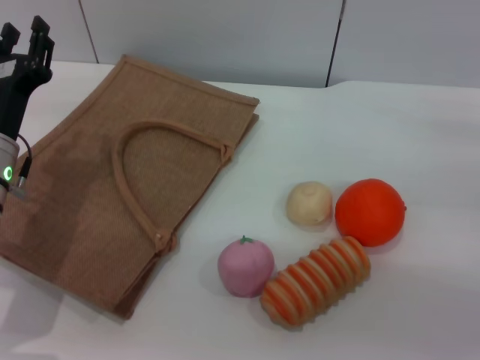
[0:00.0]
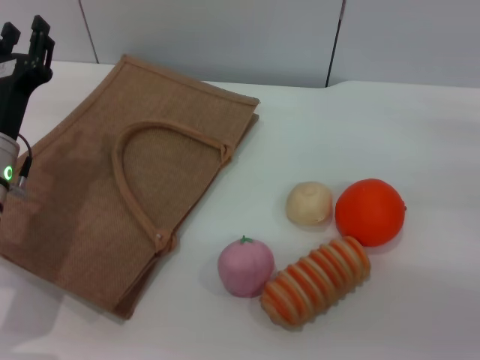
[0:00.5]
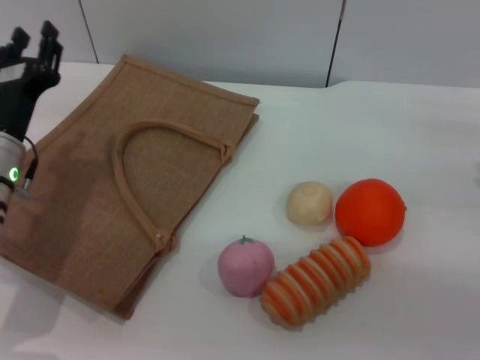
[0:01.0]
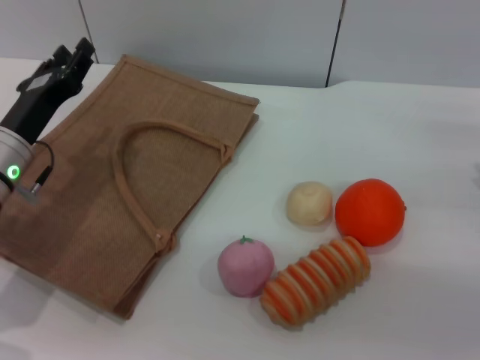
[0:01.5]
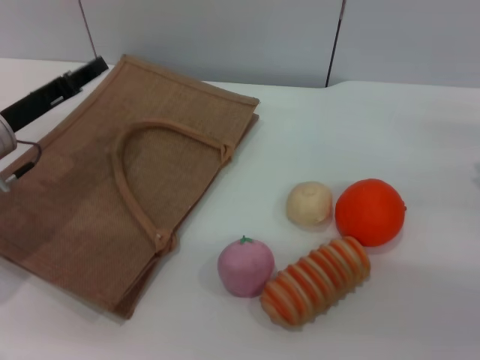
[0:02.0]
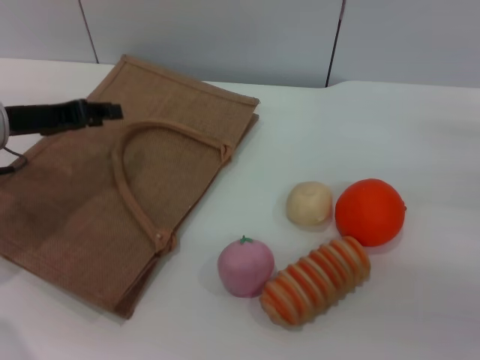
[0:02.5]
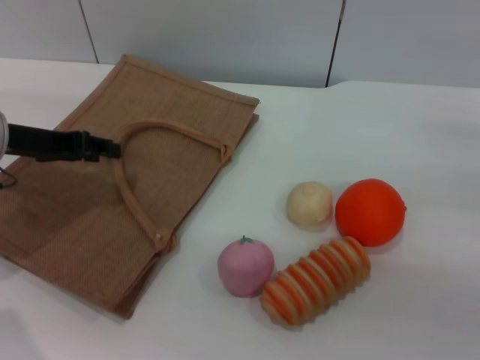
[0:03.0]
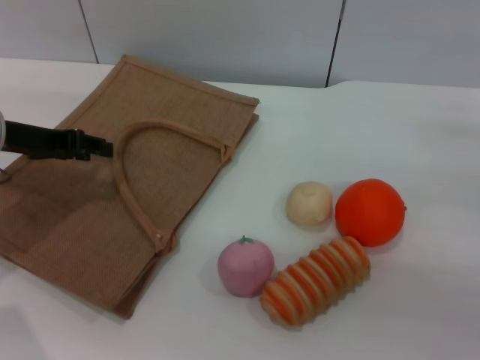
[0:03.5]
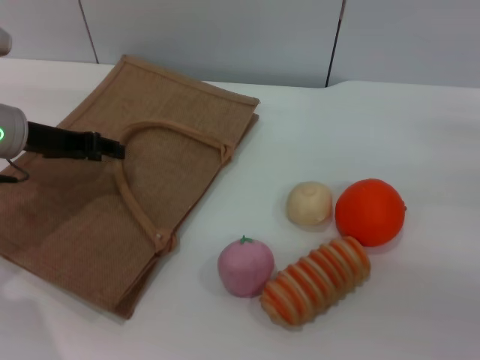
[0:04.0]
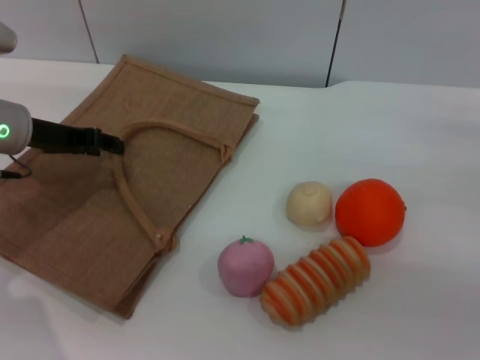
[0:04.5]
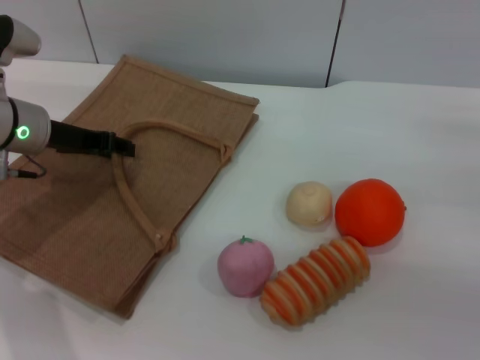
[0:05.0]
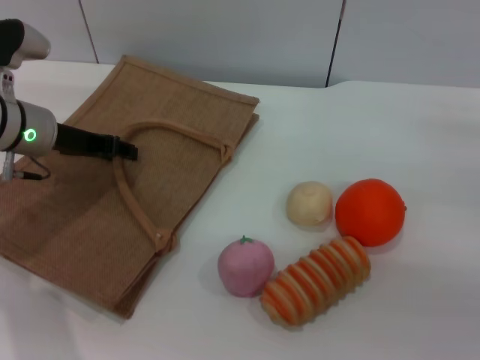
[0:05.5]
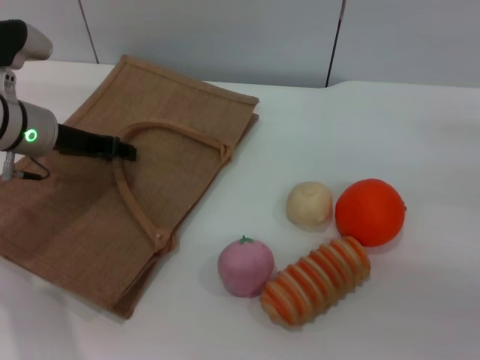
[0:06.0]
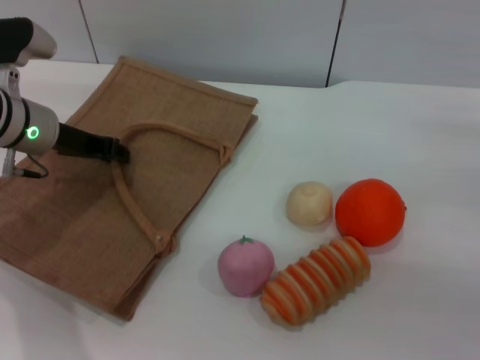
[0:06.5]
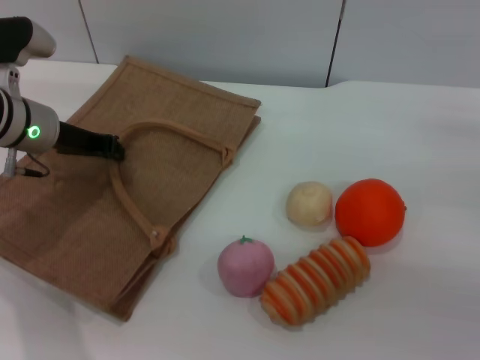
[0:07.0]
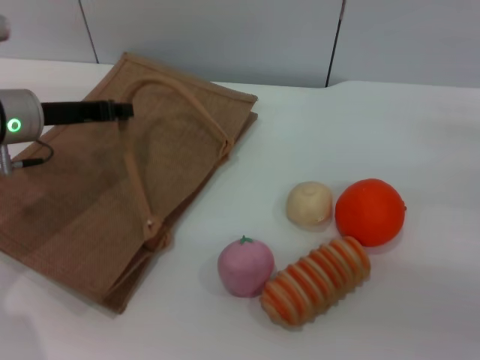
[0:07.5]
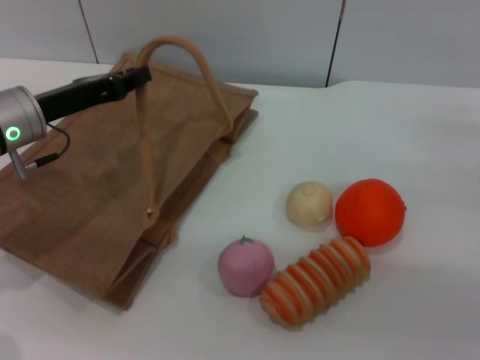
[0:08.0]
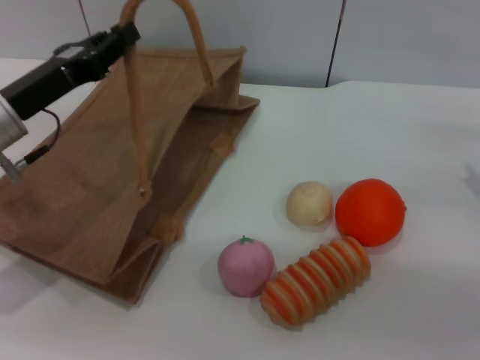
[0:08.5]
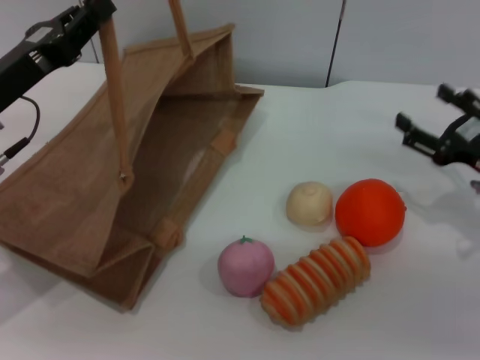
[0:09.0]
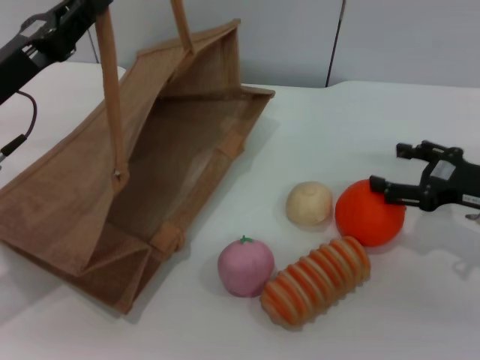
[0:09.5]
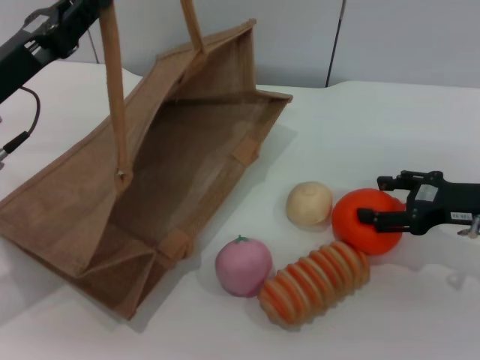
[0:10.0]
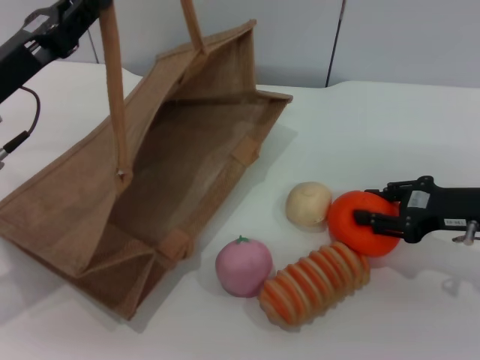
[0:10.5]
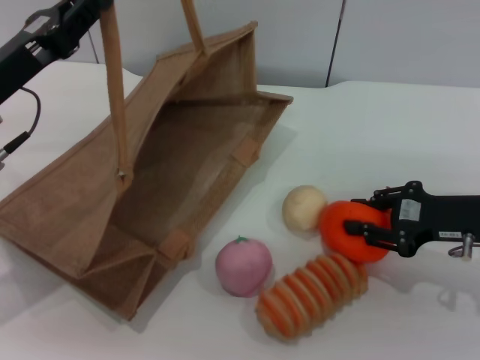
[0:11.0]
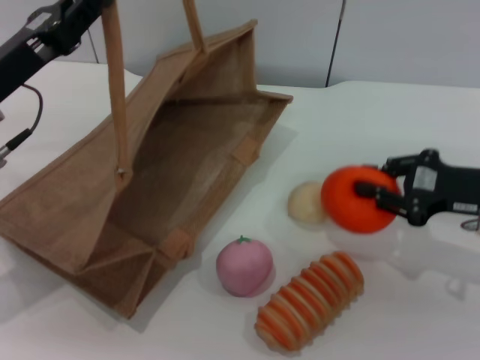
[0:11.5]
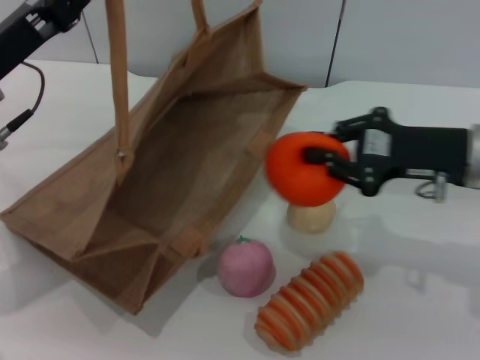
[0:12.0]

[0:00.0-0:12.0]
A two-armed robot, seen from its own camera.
Task of the whole recording: pick up the orange and peach from the table and place it in the brown handbag.
Step, 0:00.0 to 0:08.5: Lift the woven bag with the left gripper to open it.
Step, 0:09.0 to 0:11.5: Pick up the orange with the right gripper.
0:00.0 to 0:02.0: The left gripper changes place by some 5 cm.
0:04.0 to 0:06.0: The grippers make only small movements.
0:06.0 to 0:08.0: The left gripper closes.
0:08.0 to 0:10.0: The right gripper goes some 5 cm to the left. Meanwhile the left gripper changes place by about 5 cm.
0:10.0 to 0:12.0: The right gripper goes about 10 cm to the left and upward, and closes up.

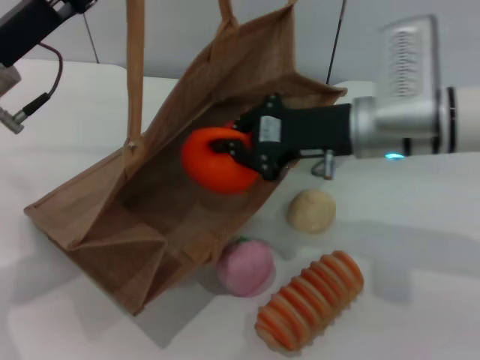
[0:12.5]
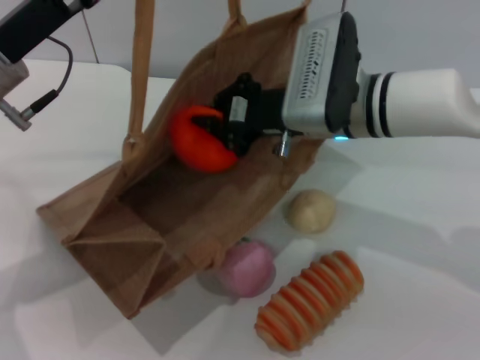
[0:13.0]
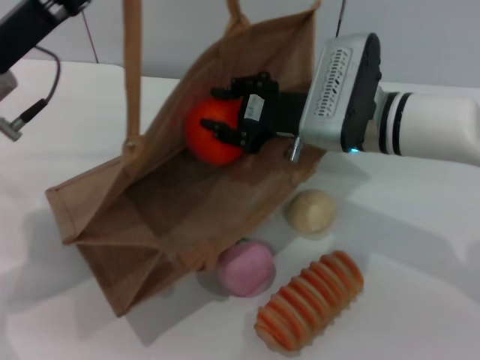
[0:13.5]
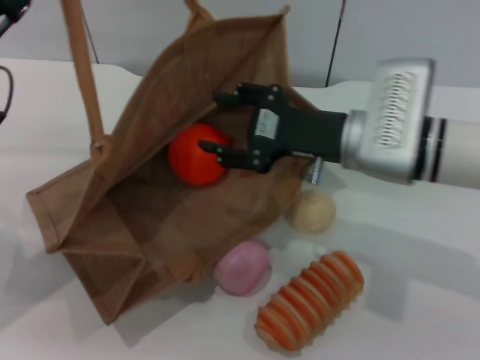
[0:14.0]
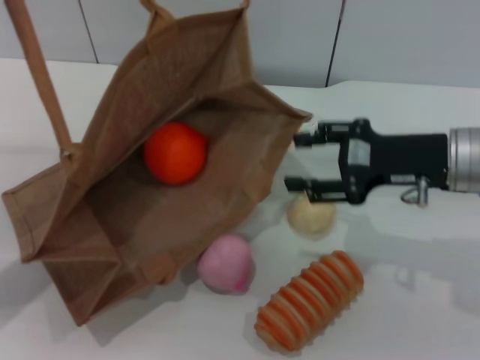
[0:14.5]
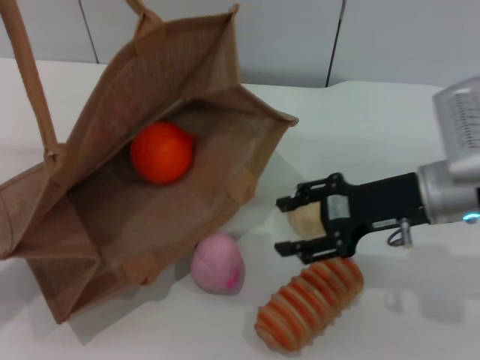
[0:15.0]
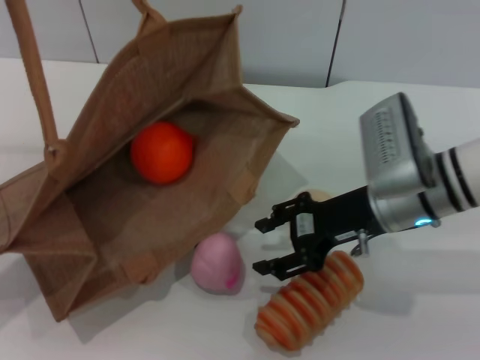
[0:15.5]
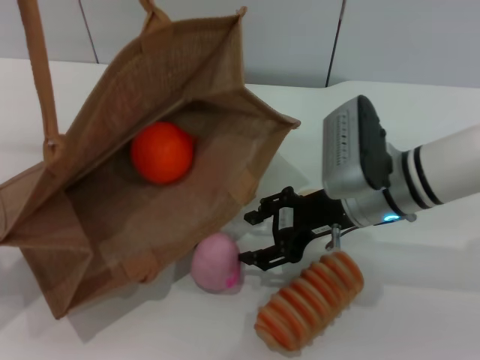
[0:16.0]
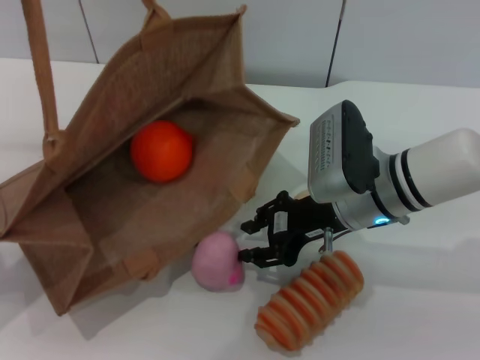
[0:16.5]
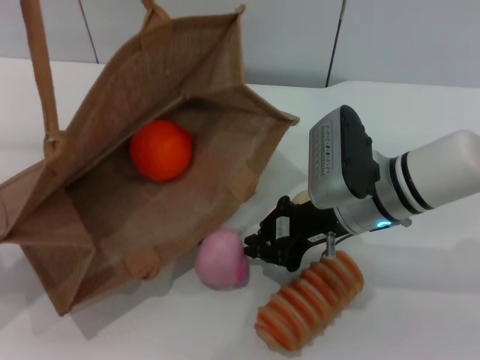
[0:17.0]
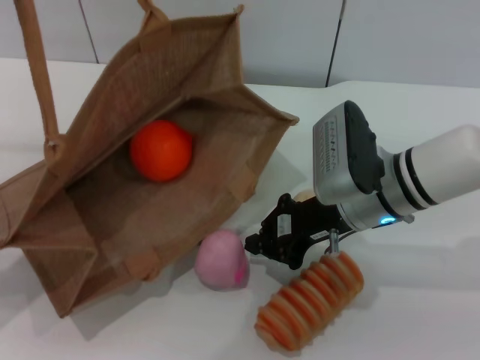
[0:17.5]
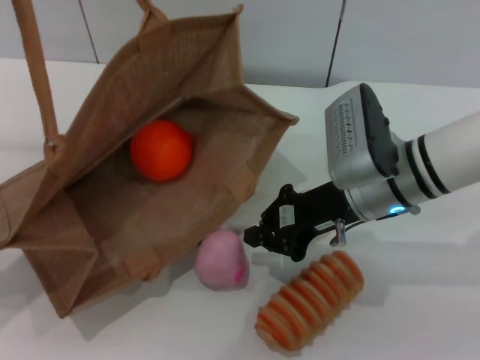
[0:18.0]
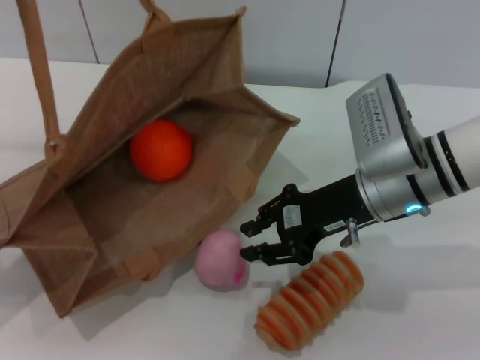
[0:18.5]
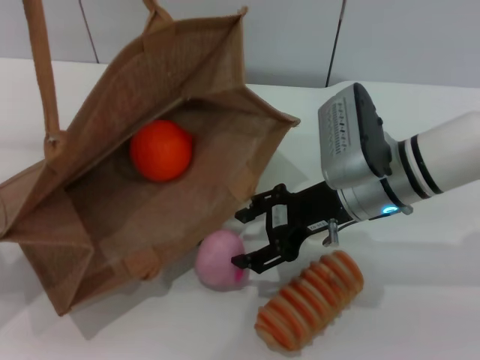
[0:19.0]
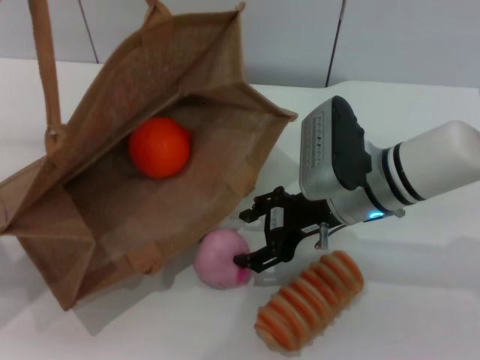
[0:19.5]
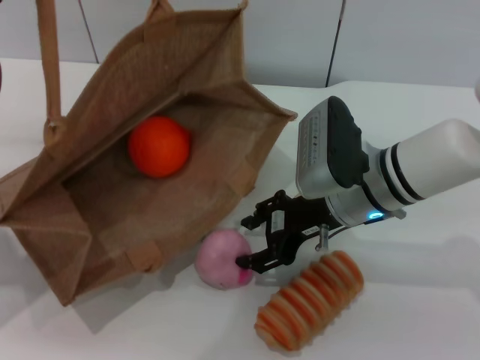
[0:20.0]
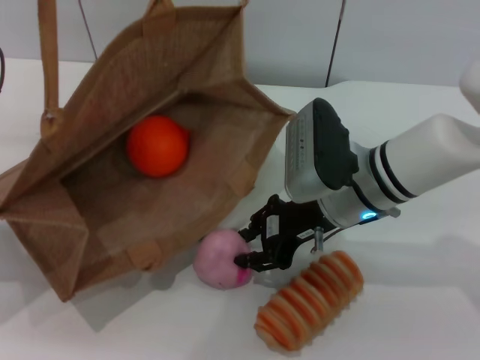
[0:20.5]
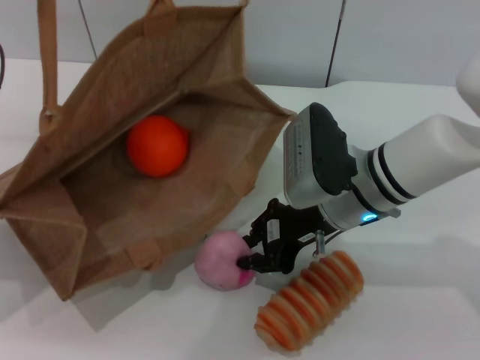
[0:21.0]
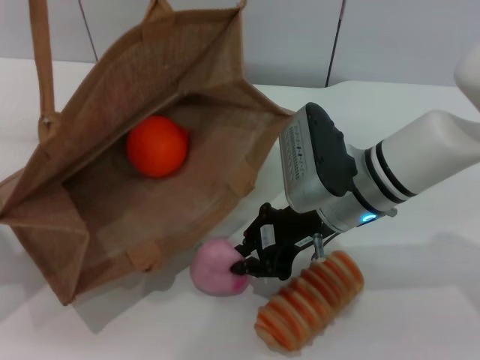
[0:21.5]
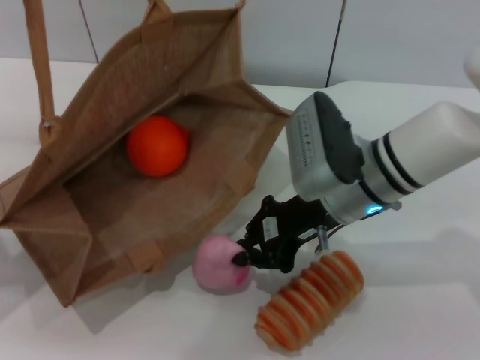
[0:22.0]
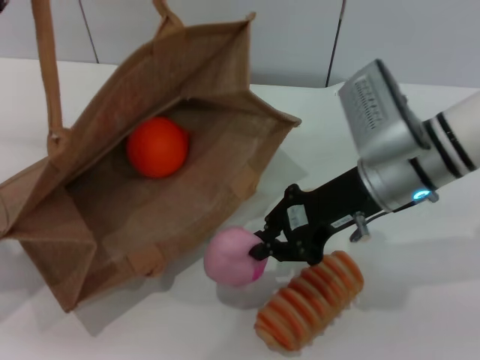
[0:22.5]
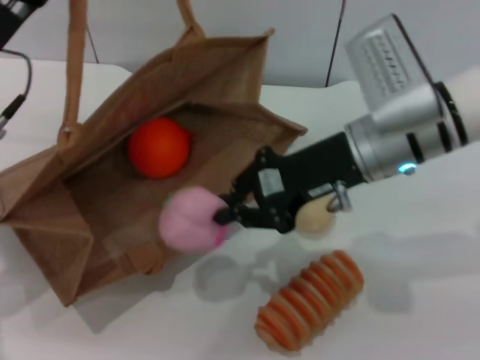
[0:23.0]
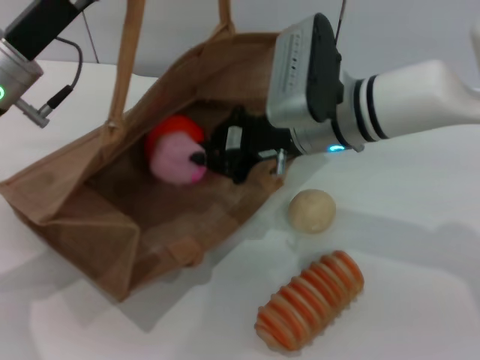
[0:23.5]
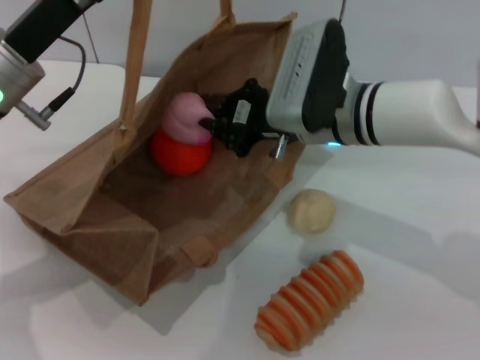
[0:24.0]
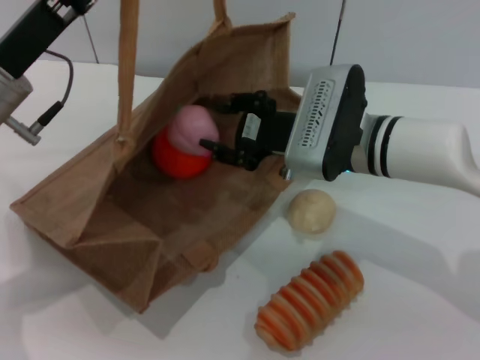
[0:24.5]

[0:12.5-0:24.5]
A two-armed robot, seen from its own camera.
Task of the whole recording: pick up the orange and peach from the table and place it in the brown handbag.
Step, 0:12.5 to 0:14.0: Place the orange into the woven bag with the right gripper.
Step, 0:14.5 to 0:22.5: Pick up the peach with the right gripper.
0:12.5 to 0:14.5: The left gripper moves to the left and backward, some 5 cm, while the right gripper travels to the right by approximately 10 cm, and opens up.
0:14.5 to 0:16.5: The right gripper is displaced to the left by roughly 10 cm.
0:16.5 to 0:18.5: The right gripper closes.
0:18.5 to 0:20.5: The right gripper opens.
0:20.5 to 0:22.5: The right gripper moves approximately 5 cm, and closes up.
0:22.5 to 0:24.5: The left gripper shifts roughly 5 cm to the right, while the right gripper changes place by about 5 cm.

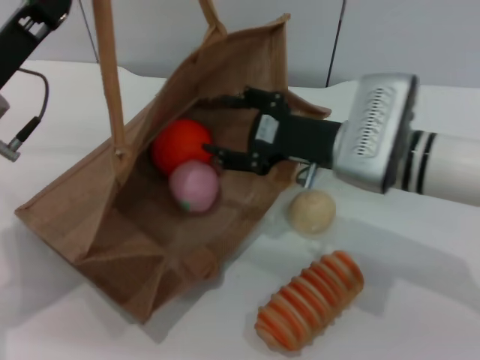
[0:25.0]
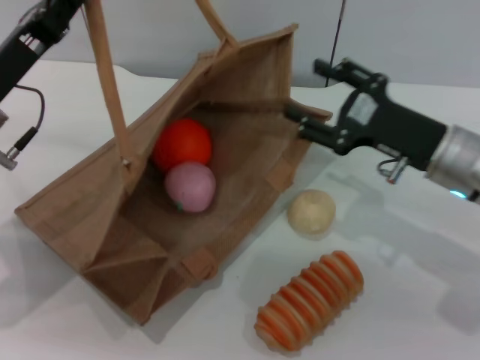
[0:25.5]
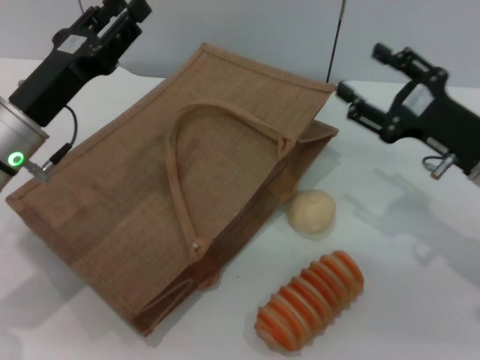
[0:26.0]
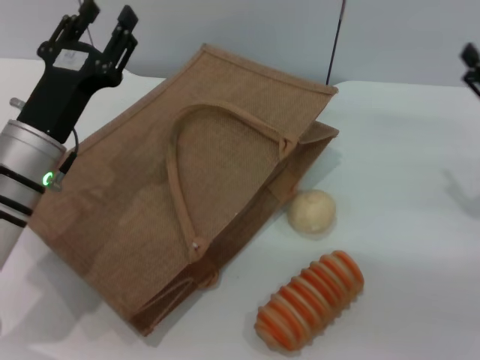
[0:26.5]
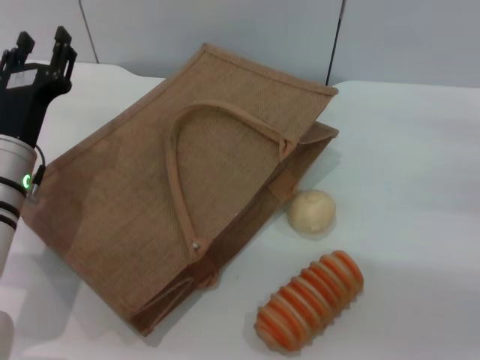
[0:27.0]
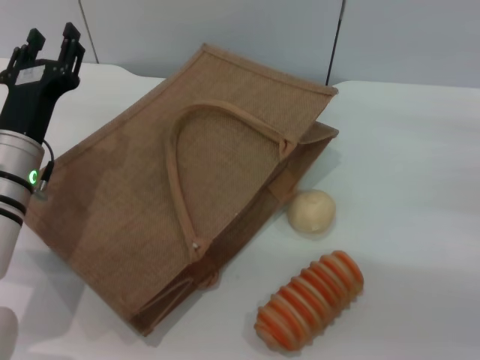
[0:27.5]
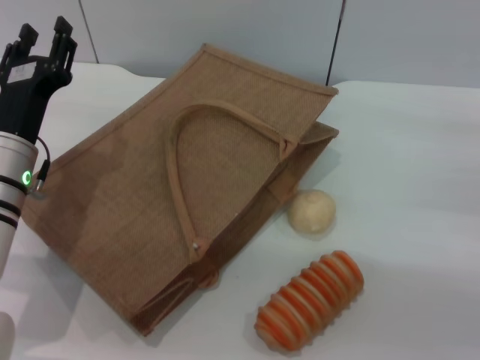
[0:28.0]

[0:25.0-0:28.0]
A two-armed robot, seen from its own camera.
Task of the whole recording: pick up the orange and peach from the table and place it in the brown handbag.
Step, 0:25.5 to 0:26.5: Lower the woven bag with the left gripper to close it.
0:25.0 to 0:26.5: The left gripper moves downward, roughly 5 cm, and opens its fingers. The right gripper heads to the right, covering some 20 cm.
